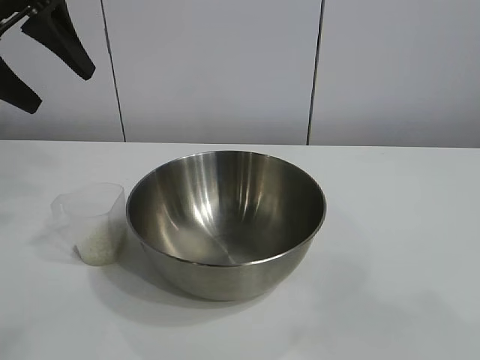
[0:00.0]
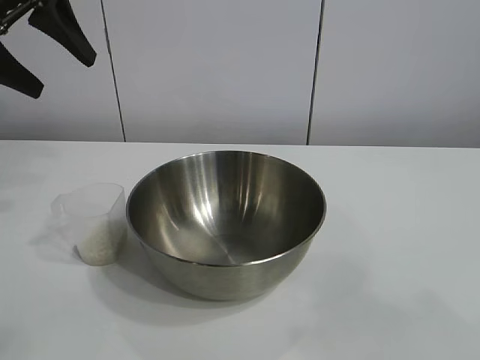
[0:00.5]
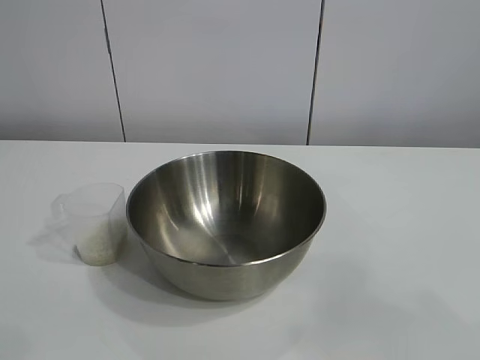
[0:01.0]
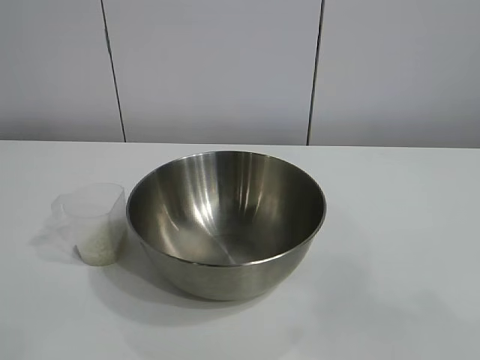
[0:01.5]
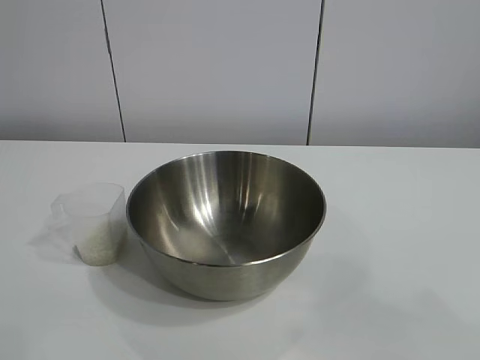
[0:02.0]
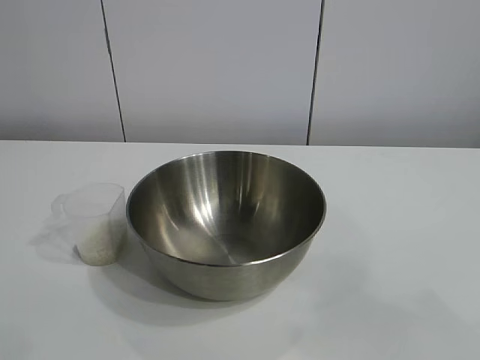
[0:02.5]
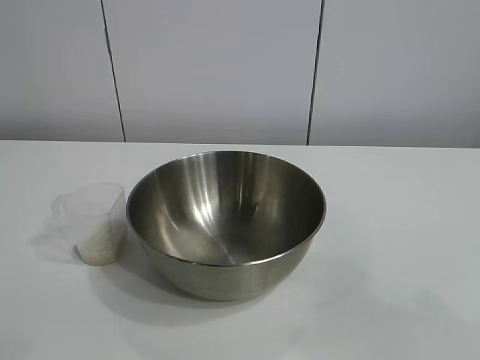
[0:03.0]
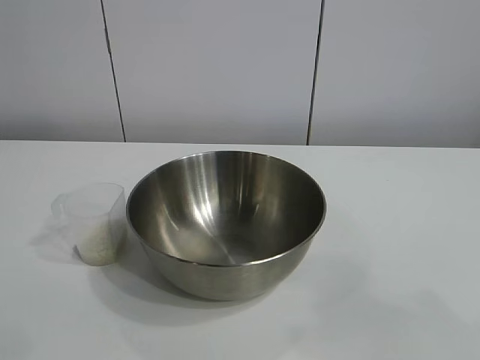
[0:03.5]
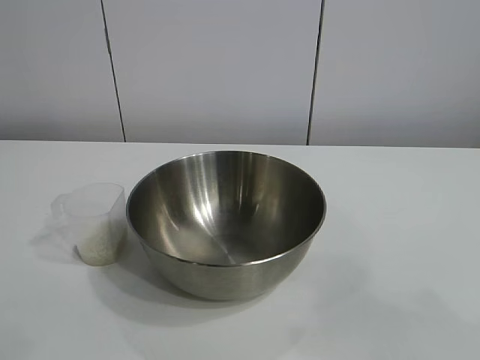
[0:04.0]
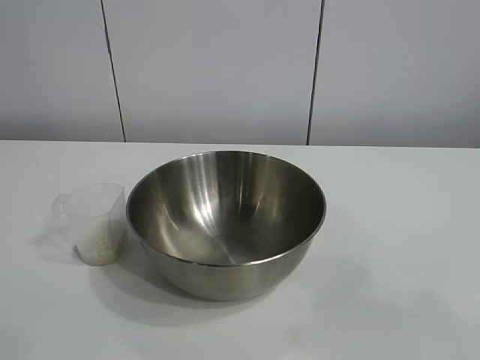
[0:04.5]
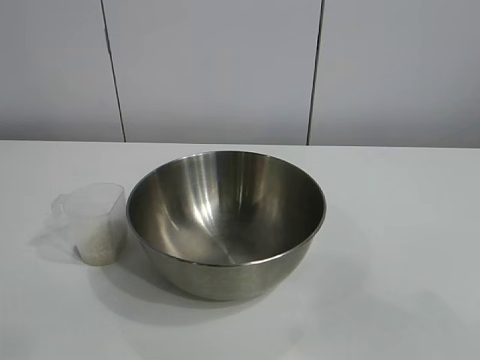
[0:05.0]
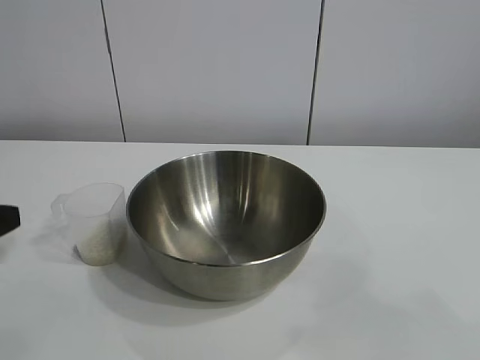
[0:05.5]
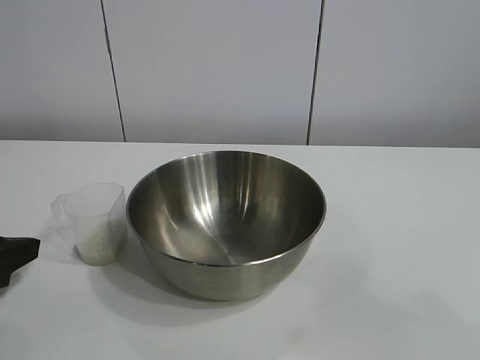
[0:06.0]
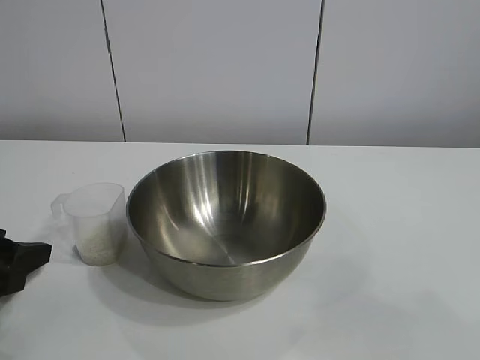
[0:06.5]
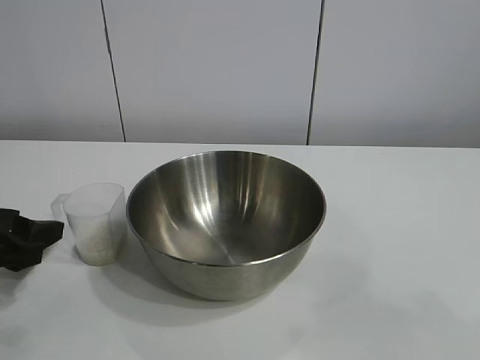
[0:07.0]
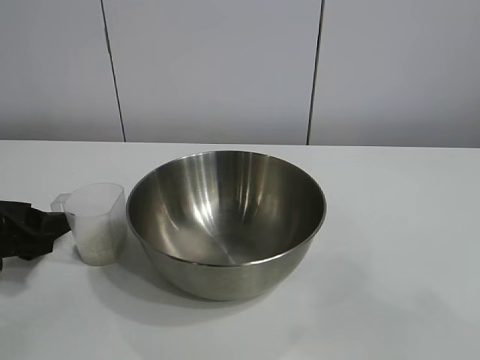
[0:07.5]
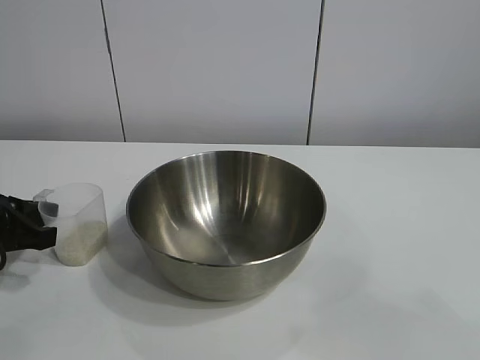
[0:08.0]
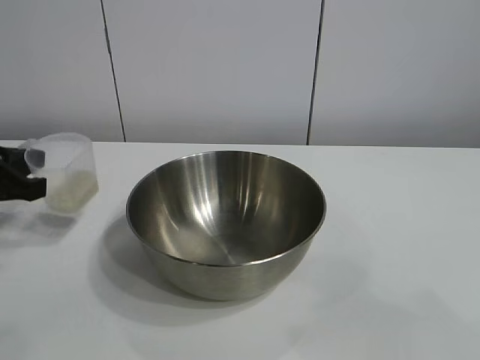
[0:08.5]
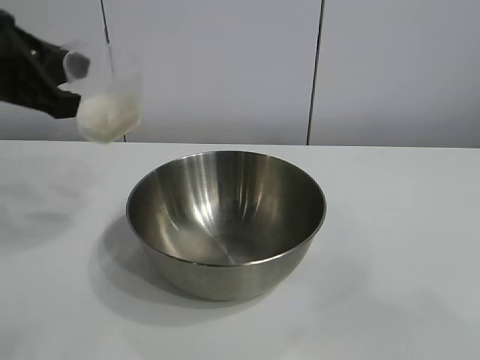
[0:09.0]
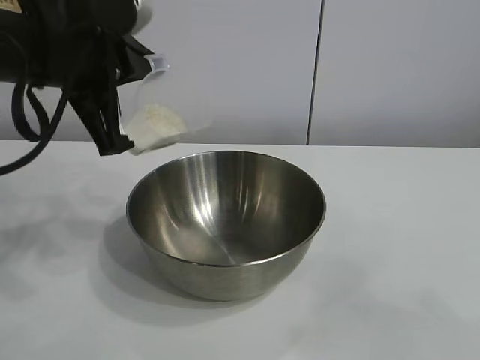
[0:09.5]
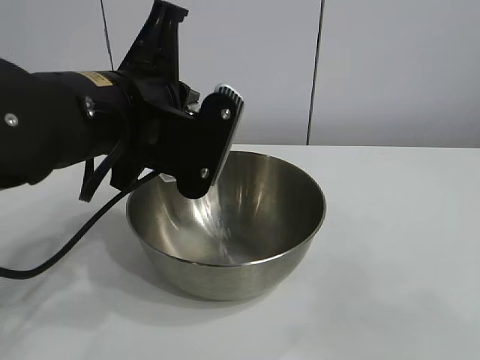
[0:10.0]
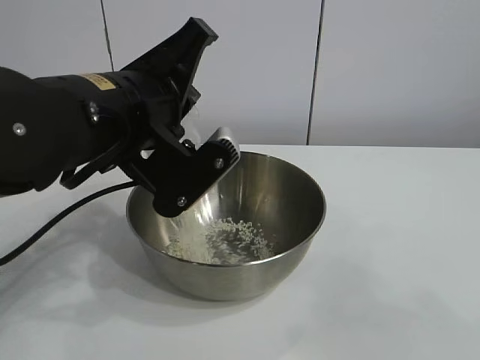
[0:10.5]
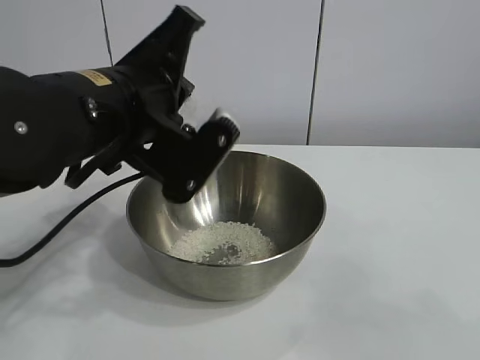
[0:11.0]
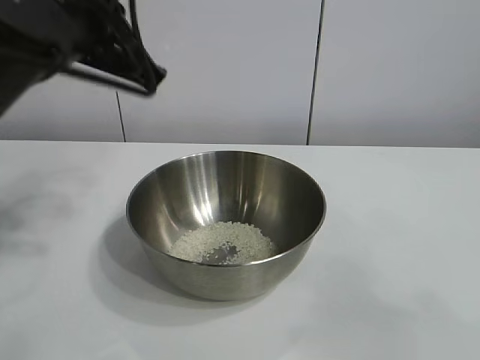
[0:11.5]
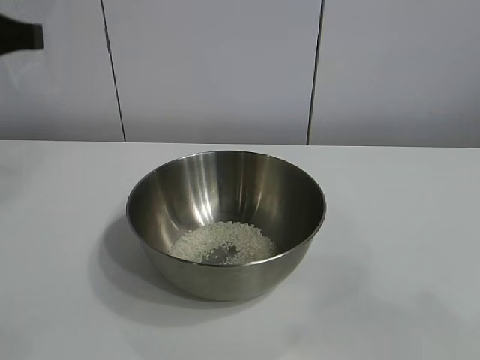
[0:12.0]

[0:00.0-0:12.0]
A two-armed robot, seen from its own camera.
Task of the whole recording: the right gripper grasp the rice container and place it in the center of the table, the left gripper grasp the rice scoop and pour the rice into the rice container.
Step, 0:00.0 to 0:08.0: Grasp the cup with rice in it with left gripper.
Step, 0:08.5 to 0:10.5: Pour the rice from the cup into the bowl with the left gripper.
